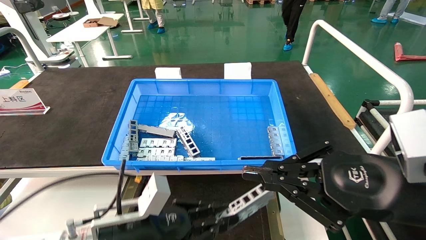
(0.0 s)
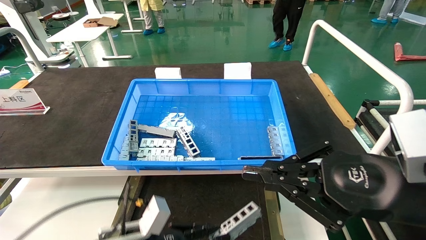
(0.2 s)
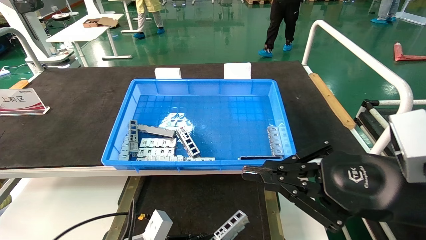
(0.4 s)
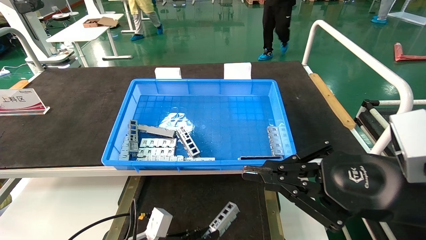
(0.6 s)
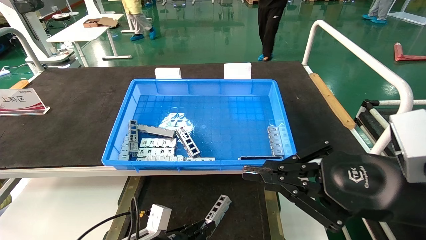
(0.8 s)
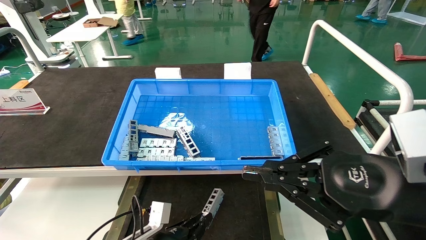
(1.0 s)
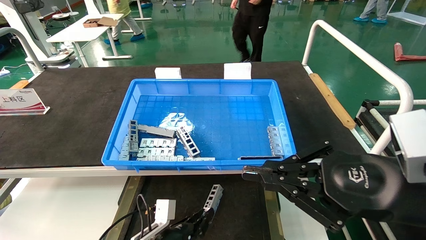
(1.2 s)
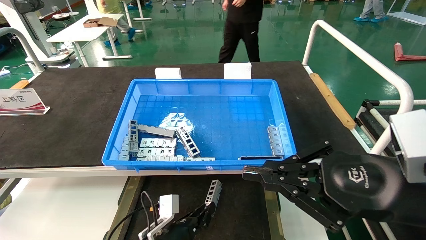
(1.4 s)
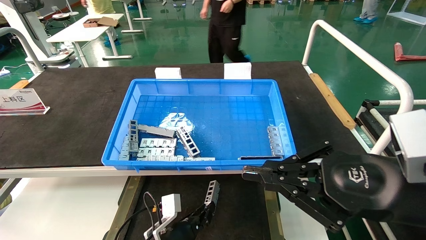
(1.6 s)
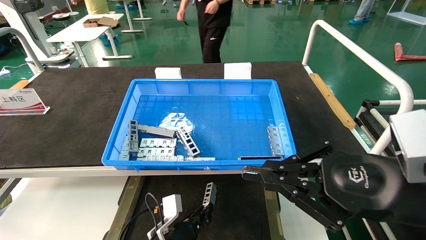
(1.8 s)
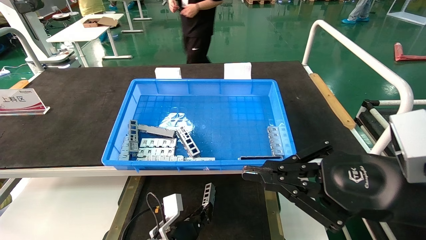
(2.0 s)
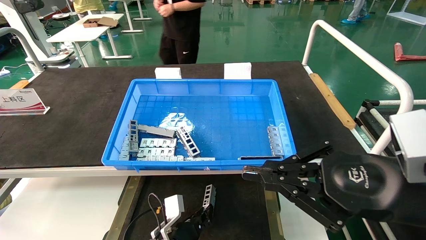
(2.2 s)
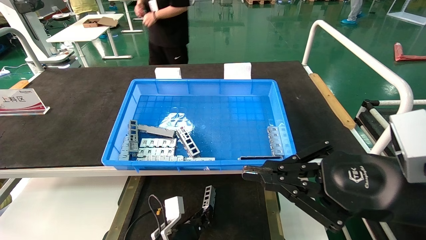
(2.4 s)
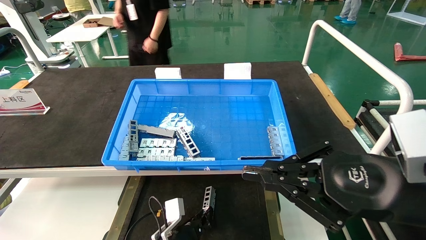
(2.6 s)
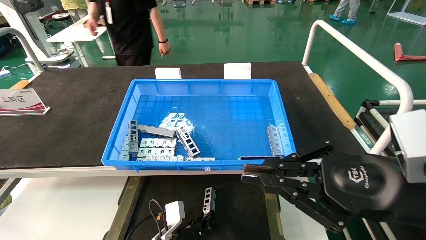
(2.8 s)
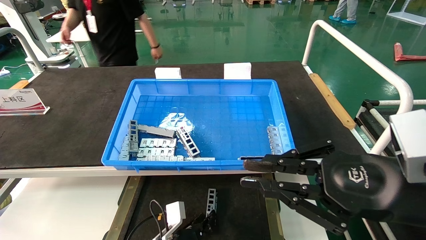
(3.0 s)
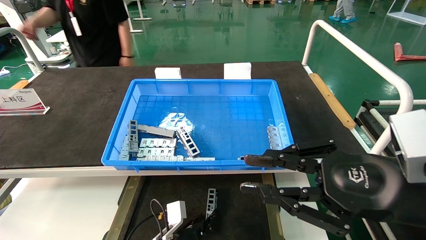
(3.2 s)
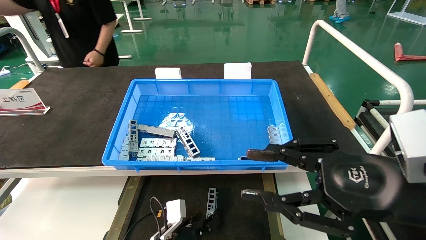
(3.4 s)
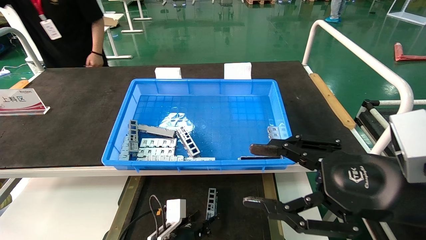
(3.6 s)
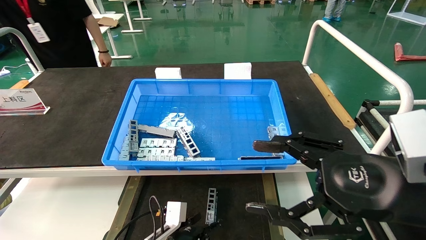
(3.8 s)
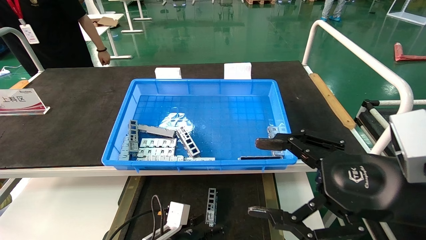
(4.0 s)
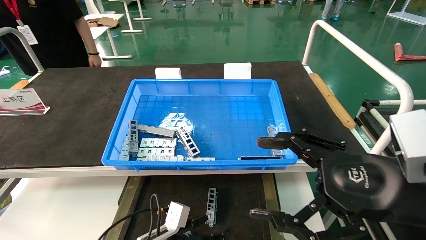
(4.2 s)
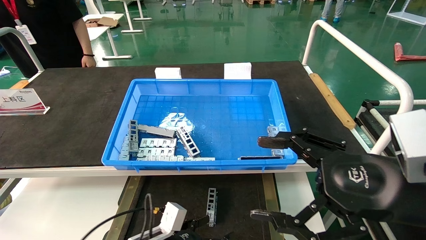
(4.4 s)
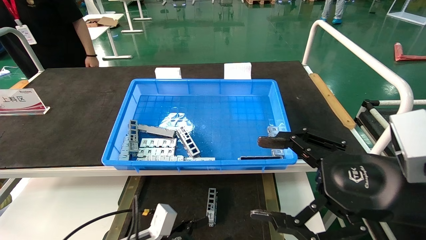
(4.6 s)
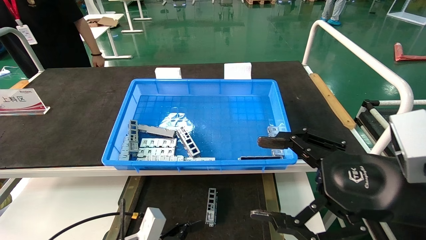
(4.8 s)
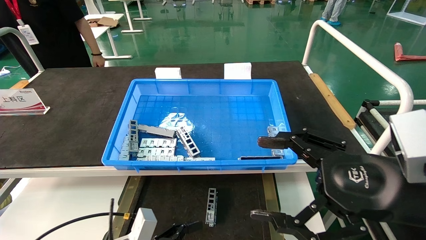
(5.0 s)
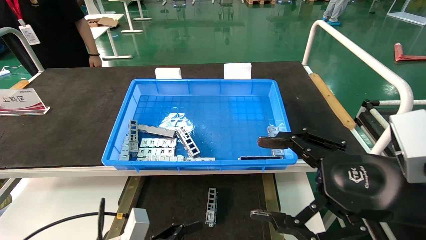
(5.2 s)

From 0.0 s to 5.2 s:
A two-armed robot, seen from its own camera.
Task of the whole recording: Grasp the part with one hand and place it on the black container.
Step, from 0.0 s to 3.2 s: Place the front USB bracket into the box.
From 0.0 s to 1.8 s: The left gripper is displaced downward, forward and to the right by some 20 cm.
From 1.8 s to 3.4 s: The left gripper opens its fingers.
From 3.4 s to 5.2 s: The left gripper travels backward, to the left and upward by approximately 15 cm, and opens up. The right gripper opens its fingers.
